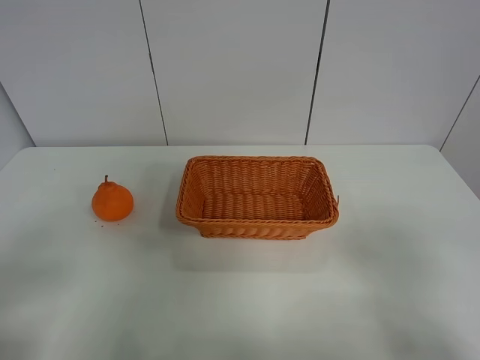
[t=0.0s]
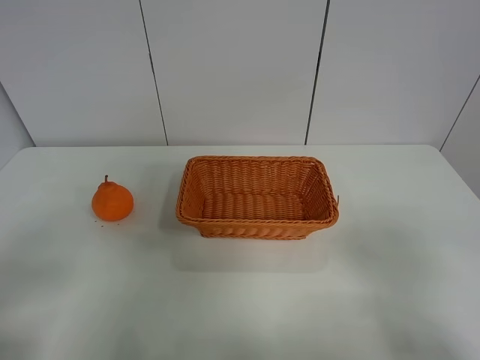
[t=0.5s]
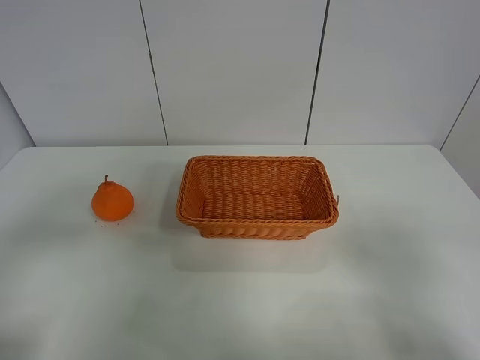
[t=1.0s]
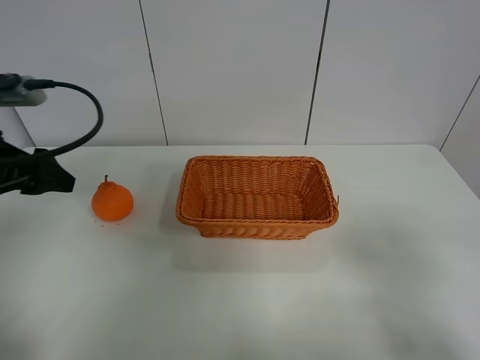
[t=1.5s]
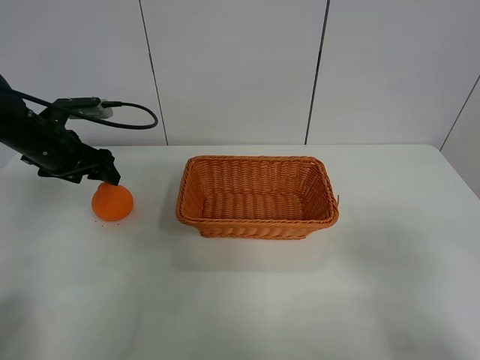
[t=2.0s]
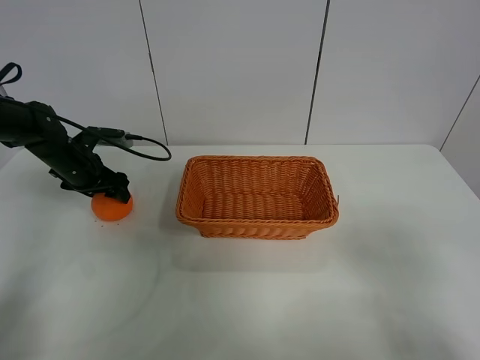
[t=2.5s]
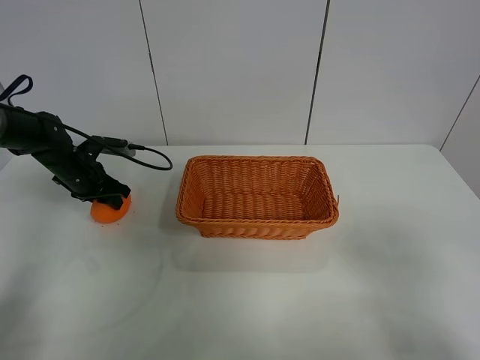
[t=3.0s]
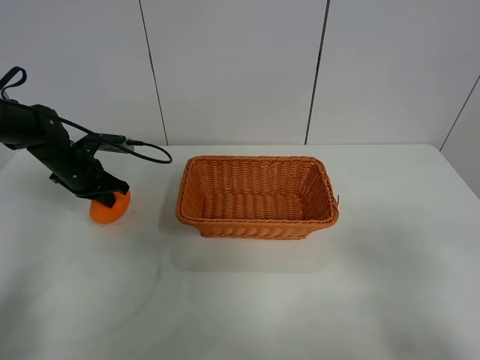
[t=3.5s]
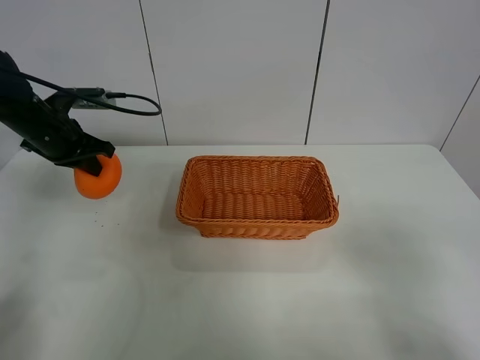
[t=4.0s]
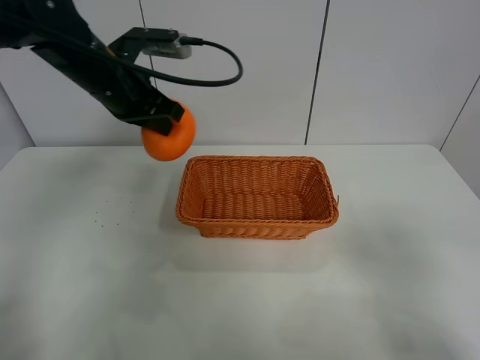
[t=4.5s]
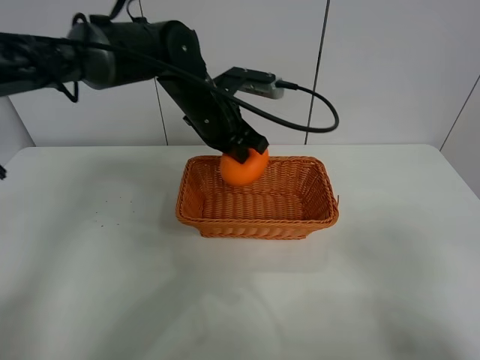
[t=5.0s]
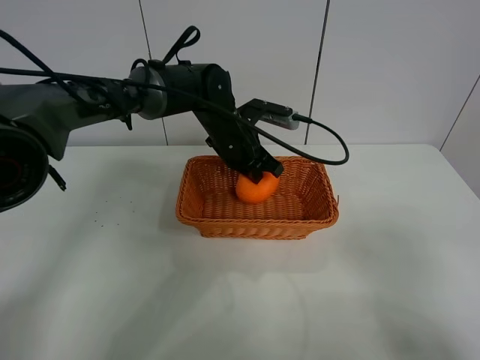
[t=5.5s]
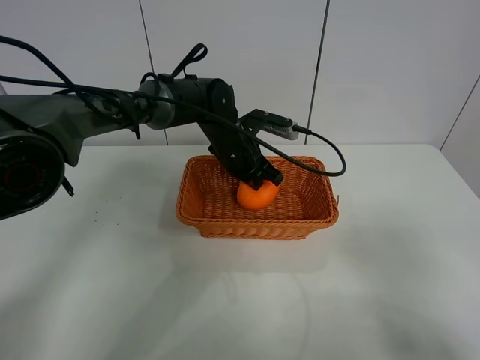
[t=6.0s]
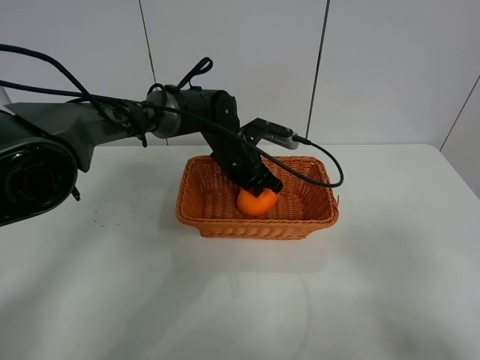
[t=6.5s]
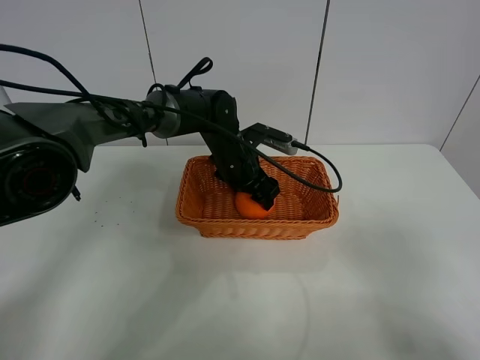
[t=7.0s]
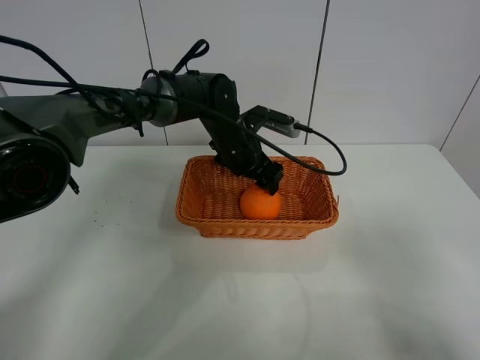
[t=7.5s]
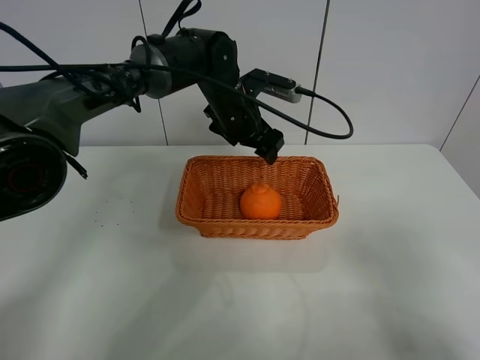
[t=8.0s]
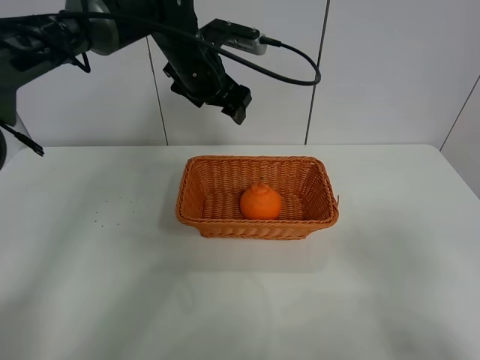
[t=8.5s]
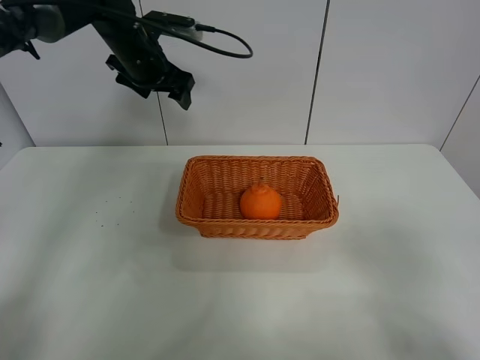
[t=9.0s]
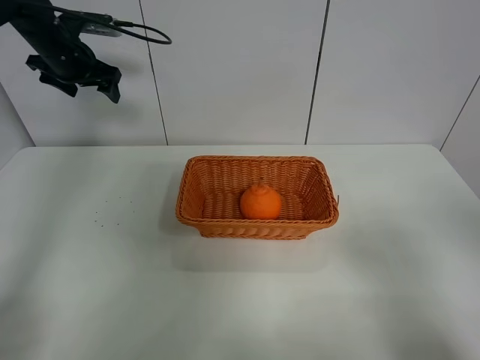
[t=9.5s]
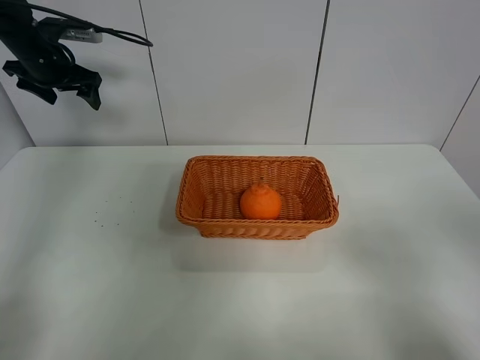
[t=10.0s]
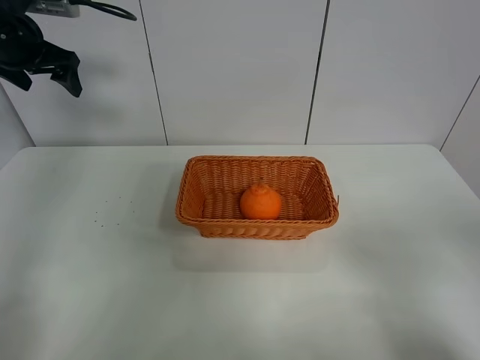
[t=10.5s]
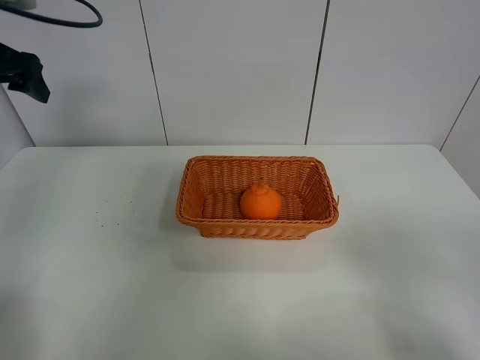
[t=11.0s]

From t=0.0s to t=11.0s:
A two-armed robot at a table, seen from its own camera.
Task of the whole recording: left gripper grabs oranges and puts them in the basket.
Step, from t=0.0s to t=3.5s: Grasp the orange with left gripper.
Step, from t=4.0s to t=9.0s: Place the orange in the basket with left gripper.
From t=0.0s to t=2.0s: The left gripper shifts approximately 35 cm forward.
From t=2.0s to t=3.5s: The left gripper shifts about 5 cm downward, and closes up.
From t=3.5s to t=5.5s: The left gripper is displaced to the right by approximately 30 cm.
From t=5.5s to t=7.5s: The left gripper opens up.
From t=7.5s to t=9.0s: The left gripper travels to the left and upward by about 20 cm.
From t=9.0s to t=11.0s: The left gripper shifts some 20 cm to the left, backward and upward.

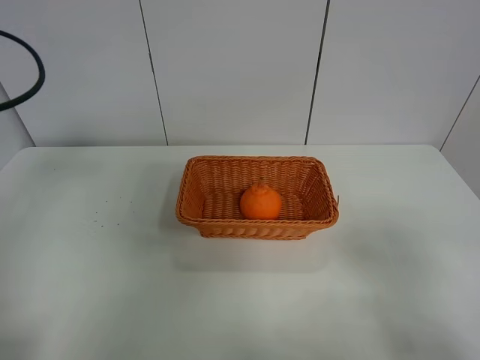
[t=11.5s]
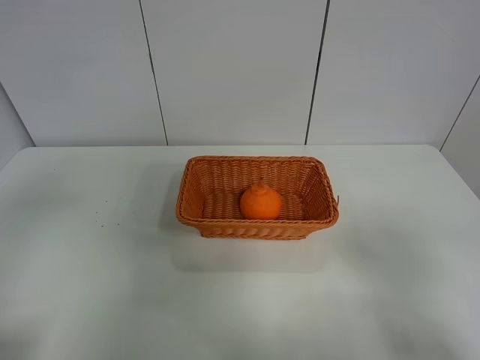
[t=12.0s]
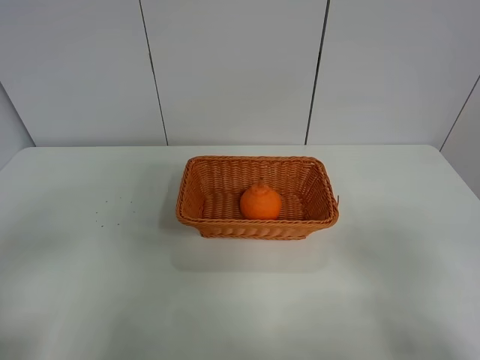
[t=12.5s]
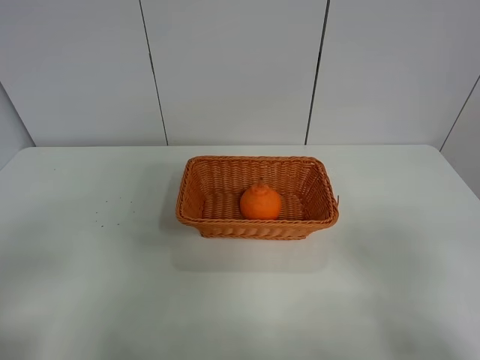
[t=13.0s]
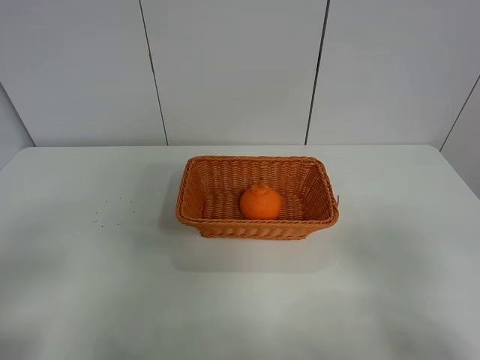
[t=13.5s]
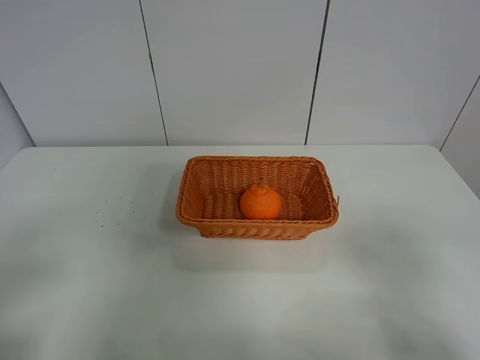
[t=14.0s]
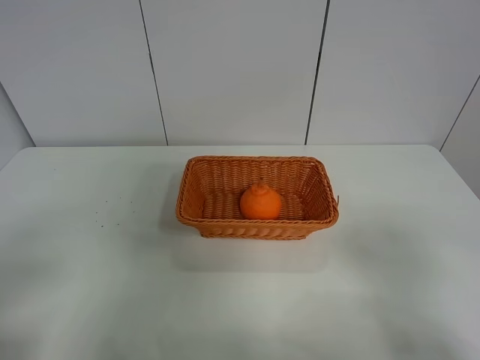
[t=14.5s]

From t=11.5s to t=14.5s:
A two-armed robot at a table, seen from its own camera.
Task of the whole recording: left gripper grabs oranges and puts them in the basket.
From t=11.5s to t=13.0s: The left gripper goes some 20 cm backward.

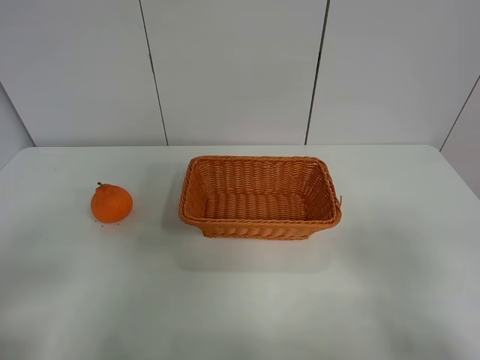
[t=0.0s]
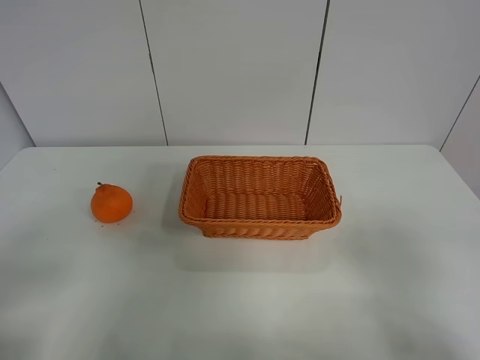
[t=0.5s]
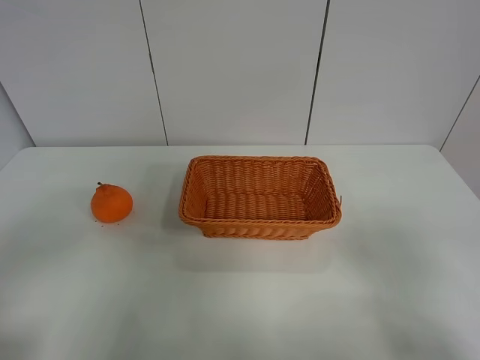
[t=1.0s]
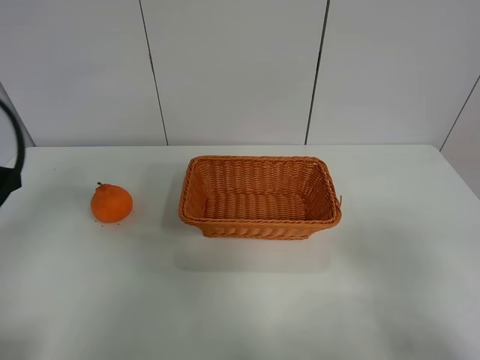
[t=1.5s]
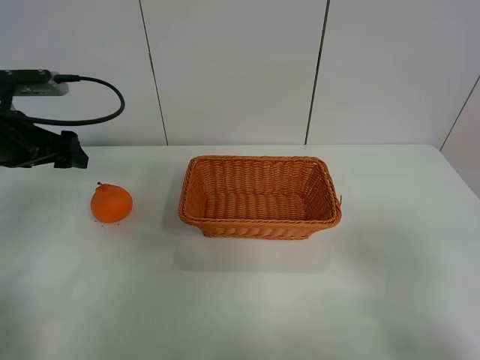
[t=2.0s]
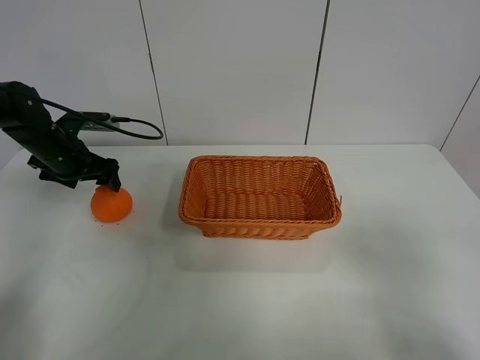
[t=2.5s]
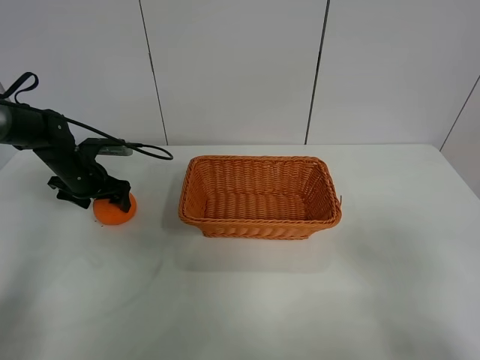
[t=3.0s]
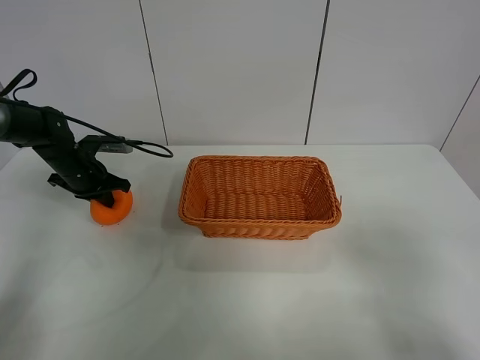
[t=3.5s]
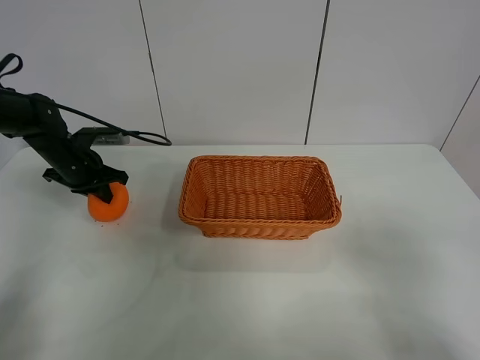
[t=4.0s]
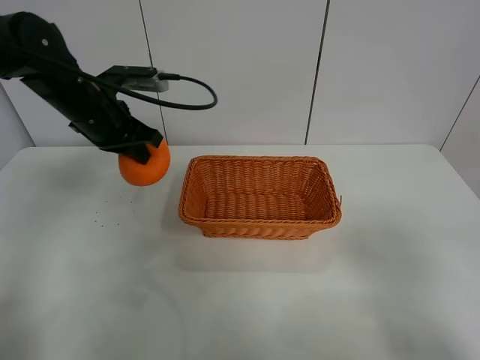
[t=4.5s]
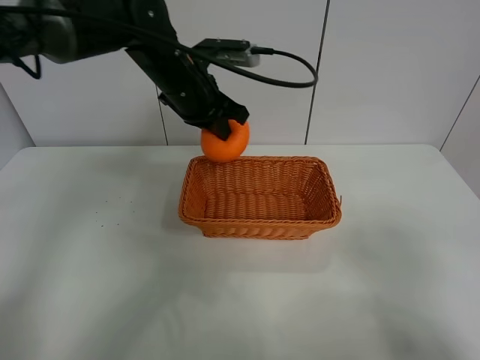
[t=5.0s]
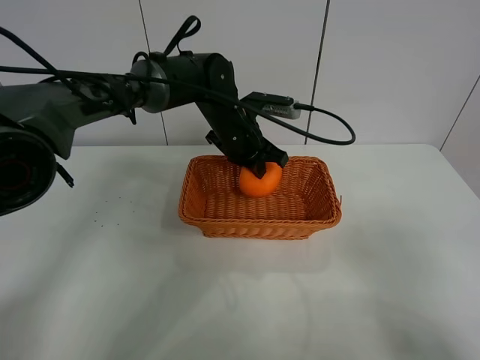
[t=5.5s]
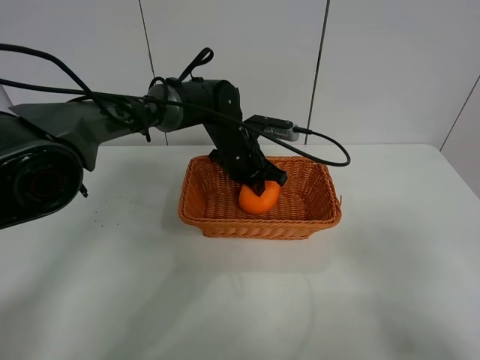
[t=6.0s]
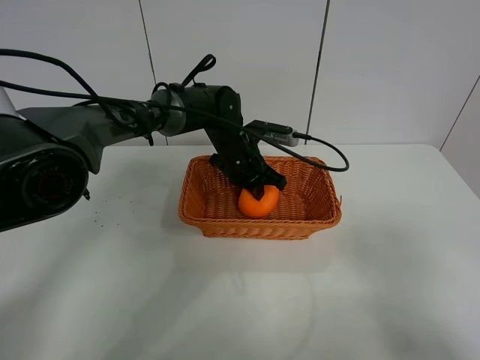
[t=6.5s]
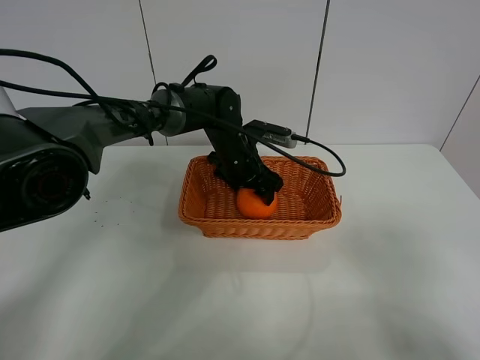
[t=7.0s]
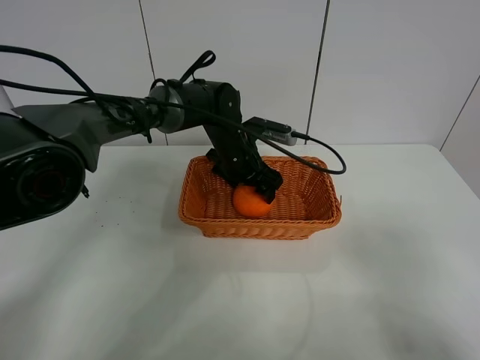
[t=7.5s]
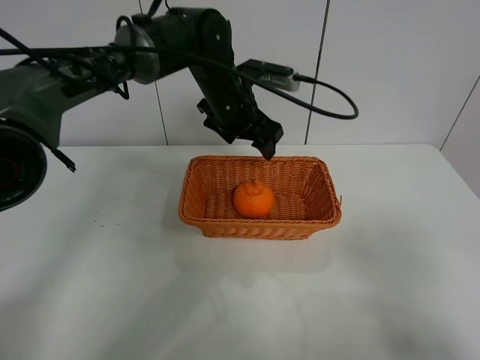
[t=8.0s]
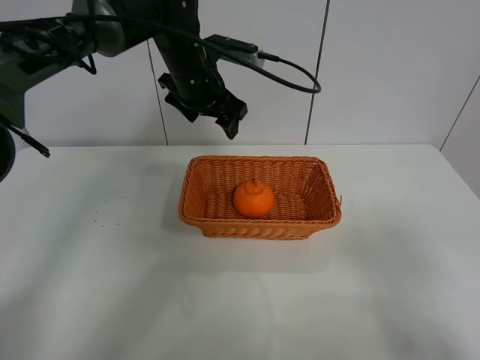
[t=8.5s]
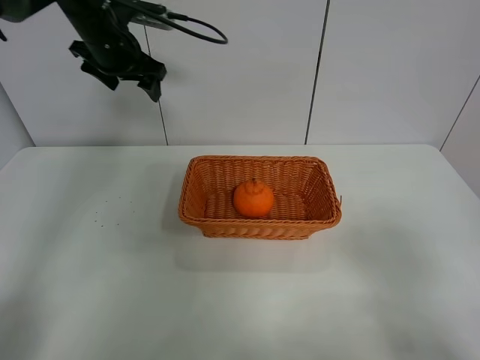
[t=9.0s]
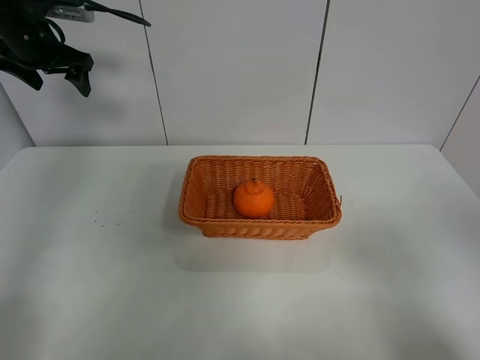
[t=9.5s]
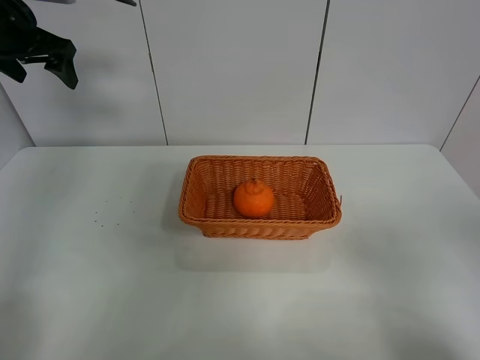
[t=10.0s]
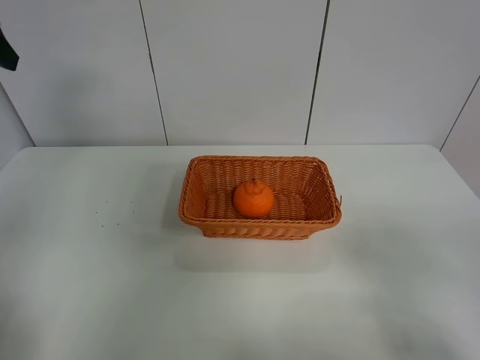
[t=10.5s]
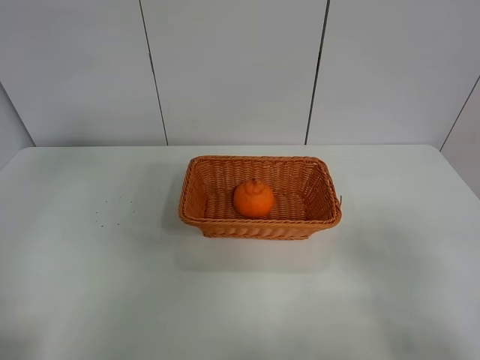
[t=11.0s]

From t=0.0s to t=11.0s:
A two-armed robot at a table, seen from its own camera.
Task of the whole recording: left gripper grabs oranges and puts them in the basket.
Step, from t=0.0s to t=3.5s: Grasp the orange with left gripper.
Step, from t=4.0s to t=8.5s: Place the orange in the basket with left gripper.
From t=0.0s to t=2.0s: The left gripper is displaced forward by roughly 30 cm.
From t=2.0s to t=3.5s: The left gripper shifts approximately 15 cm downward and forward, and closes its fingers.
From t=3.5s to t=5.5s: The left gripper travels to the right by some 30 cm.
From t=5.5s to t=7.5s: The left gripper opens its fingers.
From t=7.5s to t=9.0s: The left gripper goes some 25 cm to the left and upward.
From t=9.0s to t=11.0s: The left gripper shifts about 30 cm backward.
